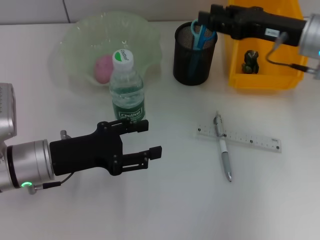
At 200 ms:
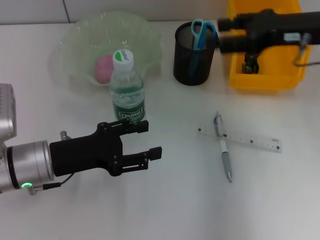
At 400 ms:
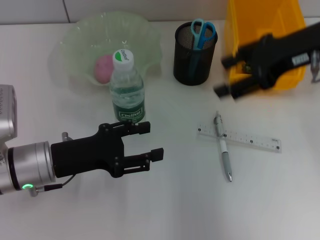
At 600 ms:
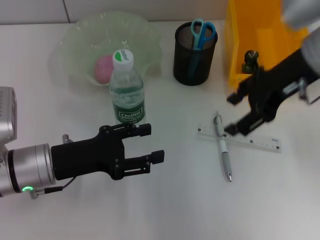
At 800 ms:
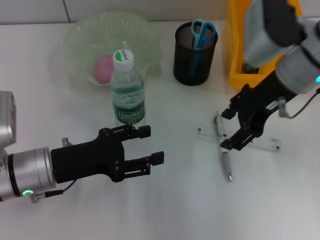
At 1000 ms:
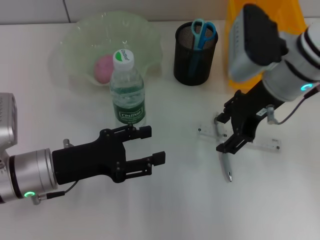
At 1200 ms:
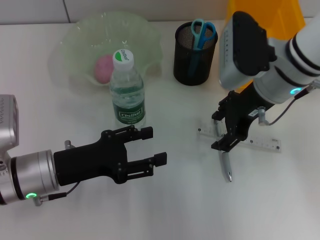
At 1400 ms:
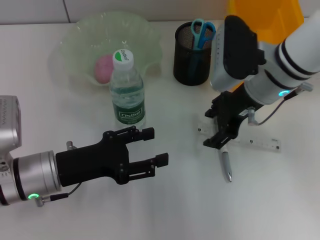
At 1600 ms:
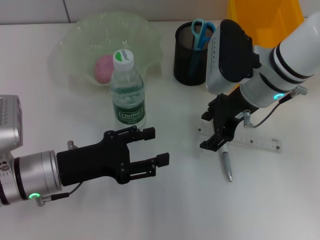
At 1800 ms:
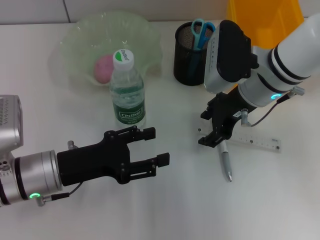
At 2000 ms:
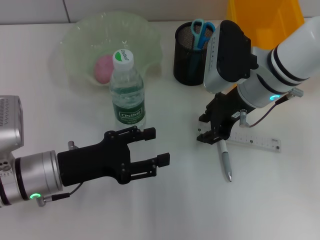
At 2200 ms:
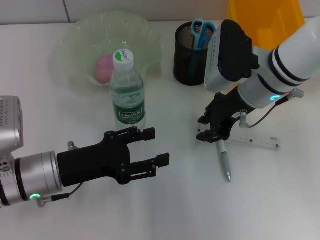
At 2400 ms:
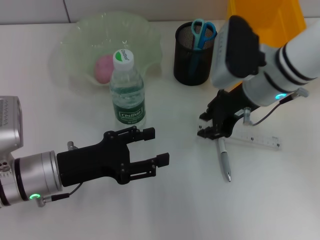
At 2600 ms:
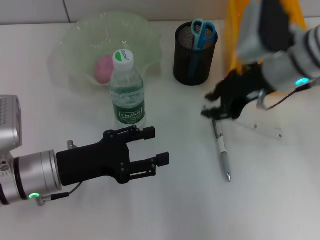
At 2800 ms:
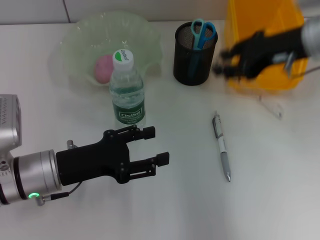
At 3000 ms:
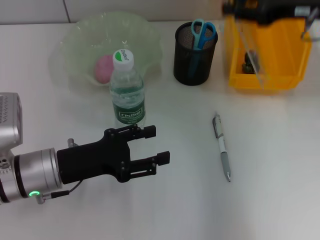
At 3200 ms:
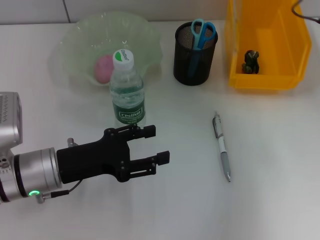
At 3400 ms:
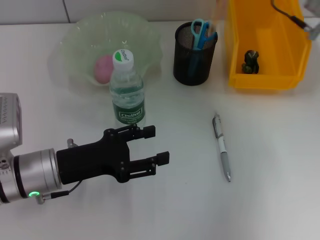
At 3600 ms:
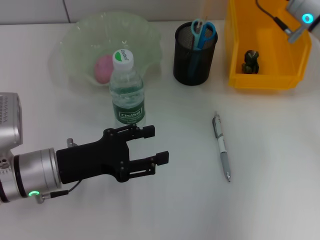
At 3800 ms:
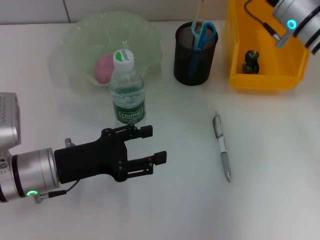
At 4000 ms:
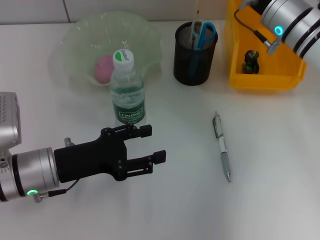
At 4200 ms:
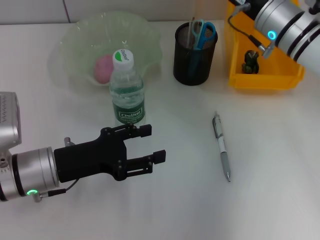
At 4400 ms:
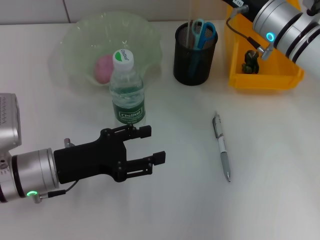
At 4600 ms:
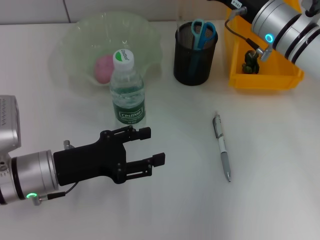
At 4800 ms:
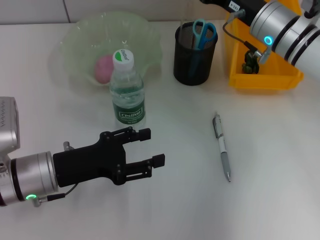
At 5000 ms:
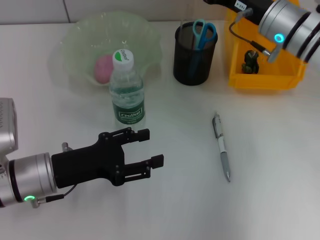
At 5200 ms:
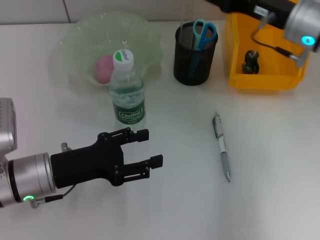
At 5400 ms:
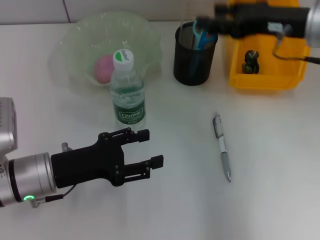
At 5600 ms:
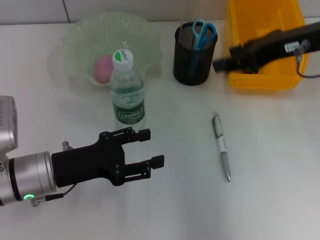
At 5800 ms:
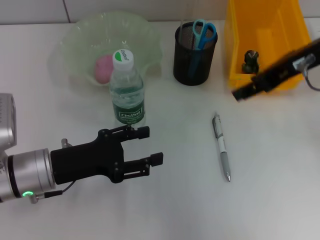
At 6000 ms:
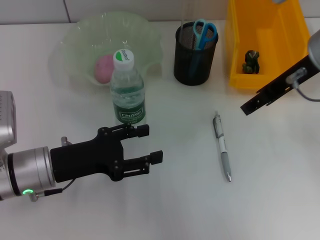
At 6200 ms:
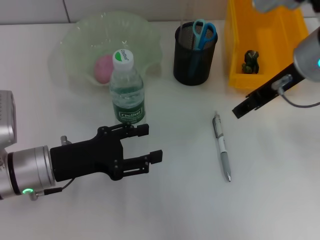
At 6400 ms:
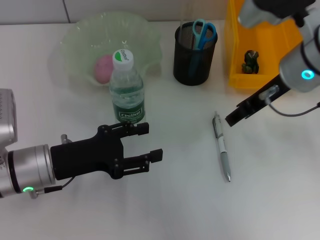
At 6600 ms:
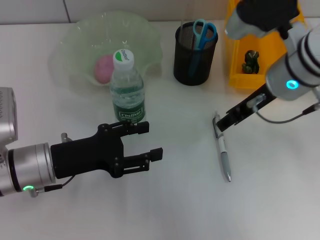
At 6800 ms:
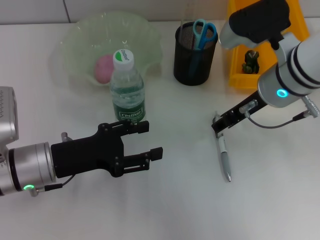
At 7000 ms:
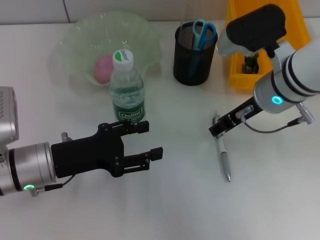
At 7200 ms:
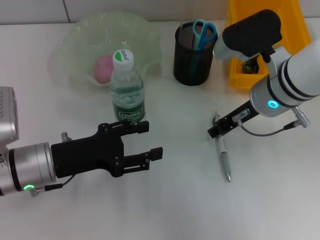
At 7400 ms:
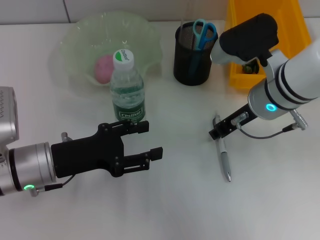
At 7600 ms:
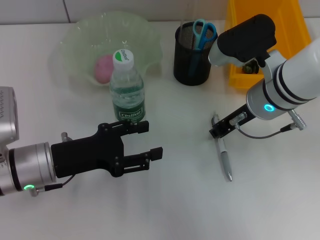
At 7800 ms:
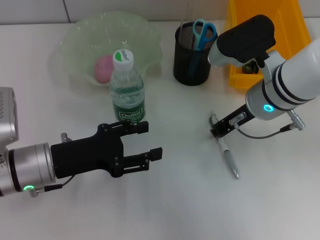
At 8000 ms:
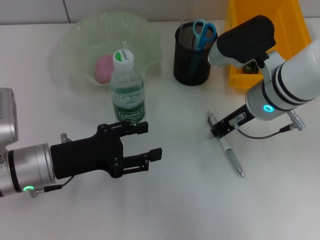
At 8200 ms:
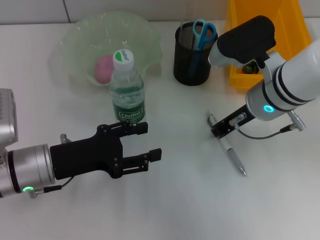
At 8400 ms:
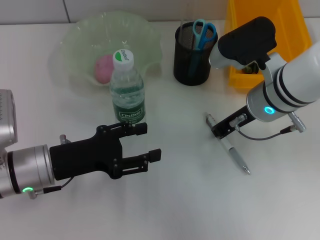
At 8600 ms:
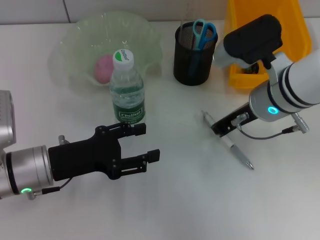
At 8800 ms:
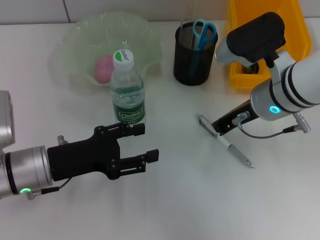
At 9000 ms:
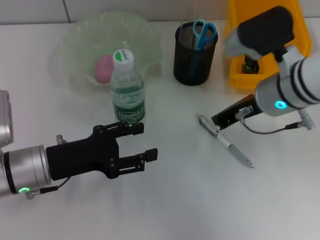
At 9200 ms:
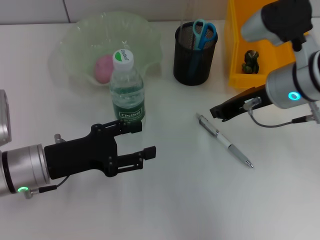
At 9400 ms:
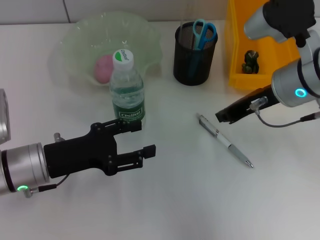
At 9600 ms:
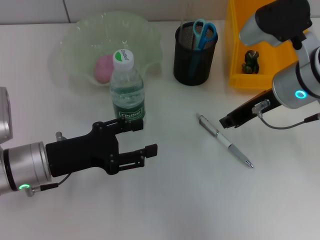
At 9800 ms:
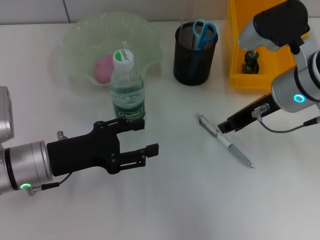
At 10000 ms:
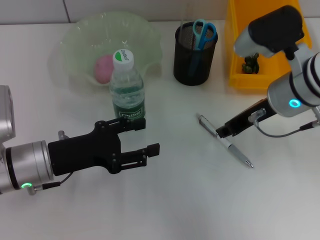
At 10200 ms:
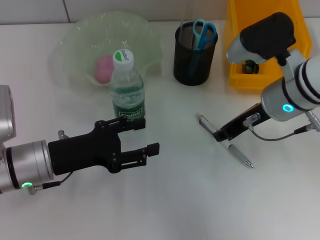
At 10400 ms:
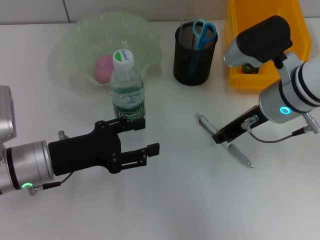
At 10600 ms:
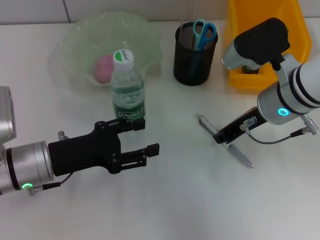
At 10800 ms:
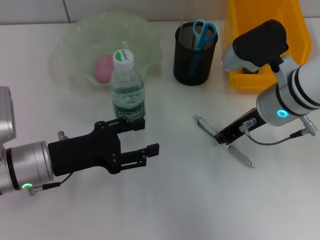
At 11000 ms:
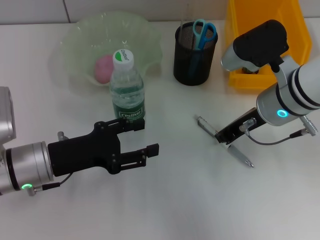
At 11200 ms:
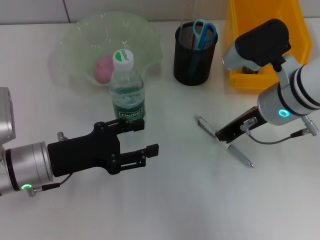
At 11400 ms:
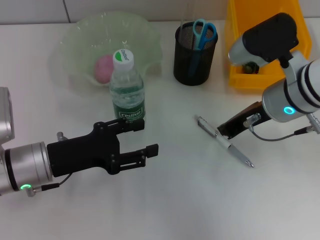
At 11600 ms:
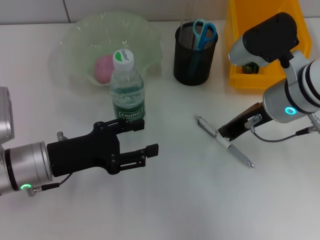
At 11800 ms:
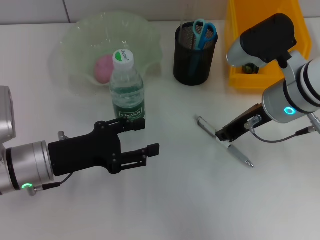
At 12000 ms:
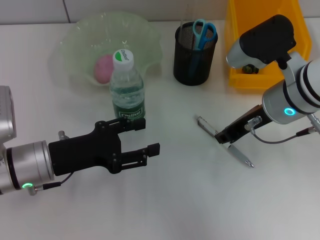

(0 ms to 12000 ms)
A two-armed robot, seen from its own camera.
Step, 0 ms - 2200 ms: Grab the ruler with the right hand.
Step, 2400 ms - 4600 ms: Place the ruler into the pen holder with the right hand.
0 ms - 1600 ms: The right gripper shifts approximately 10 cm to the left.
1600 ms - 3000 ms: The right gripper goes approximately 15 cm to the right and upward, and closes.
3000 ms - 4400 ms: The right gripper goes some 10 cm downward and to the left.
4400 ms - 6000 ms: The right gripper is displaced upward and backward by approximately 10 cm.
6000 ms - 7600 ms: The right gripper heads downward, covering about 10 cm.
7600 ms - 9000 ms: The right gripper closes.
9000 ms - 10400 ms: The right gripper opens.
10400 ms - 12000 ms: The two grippers keep their place.

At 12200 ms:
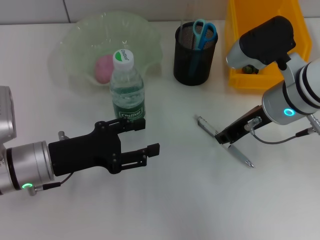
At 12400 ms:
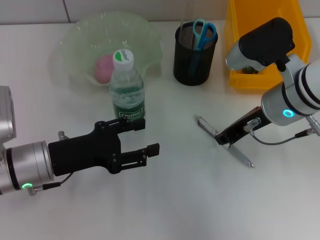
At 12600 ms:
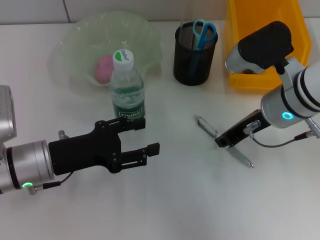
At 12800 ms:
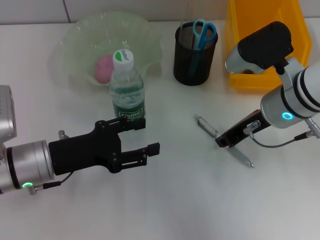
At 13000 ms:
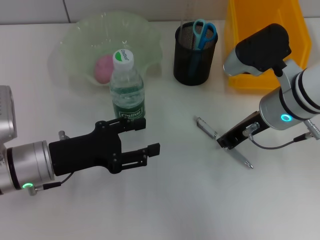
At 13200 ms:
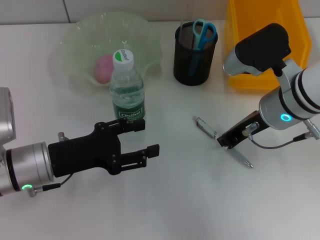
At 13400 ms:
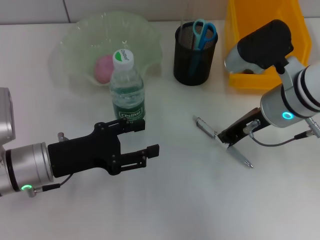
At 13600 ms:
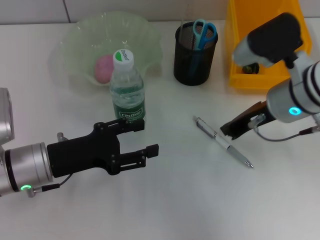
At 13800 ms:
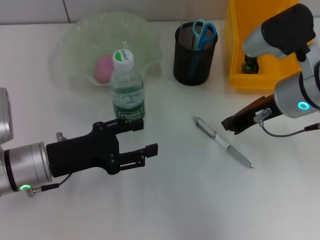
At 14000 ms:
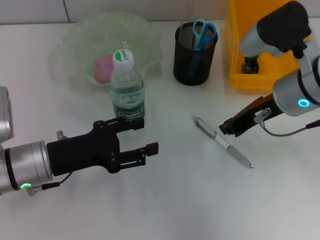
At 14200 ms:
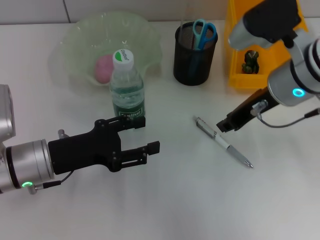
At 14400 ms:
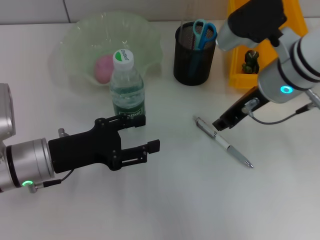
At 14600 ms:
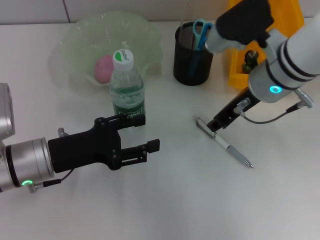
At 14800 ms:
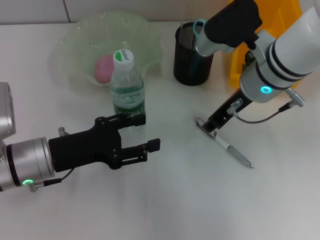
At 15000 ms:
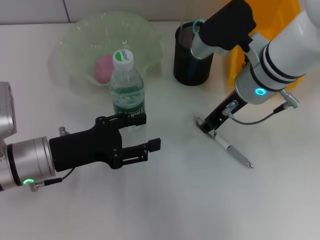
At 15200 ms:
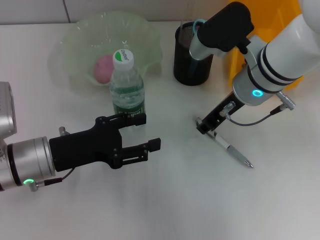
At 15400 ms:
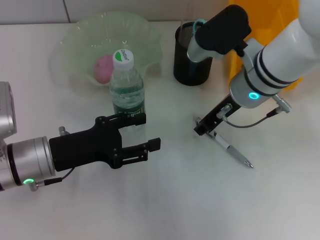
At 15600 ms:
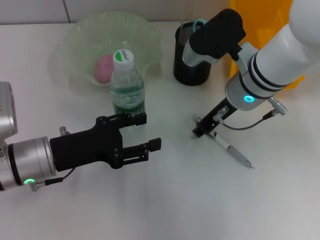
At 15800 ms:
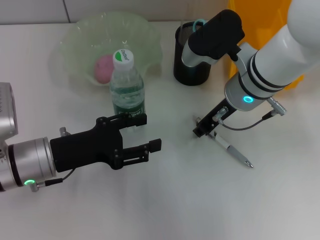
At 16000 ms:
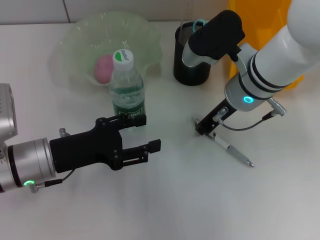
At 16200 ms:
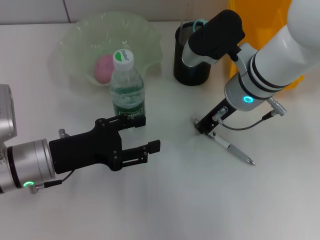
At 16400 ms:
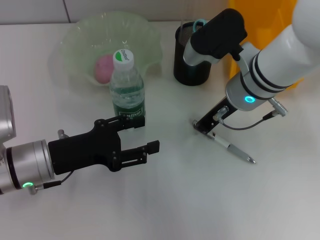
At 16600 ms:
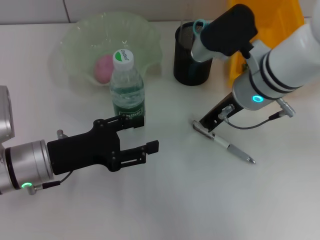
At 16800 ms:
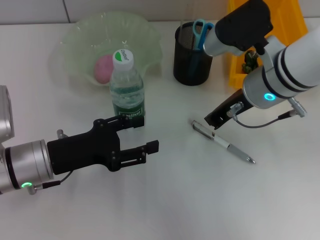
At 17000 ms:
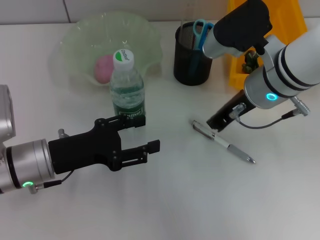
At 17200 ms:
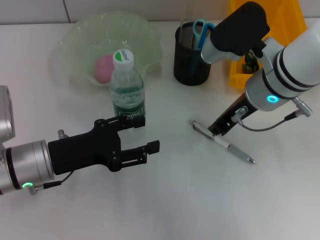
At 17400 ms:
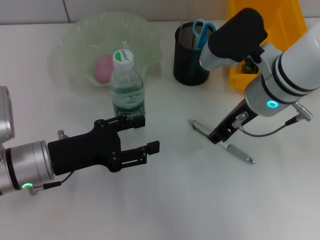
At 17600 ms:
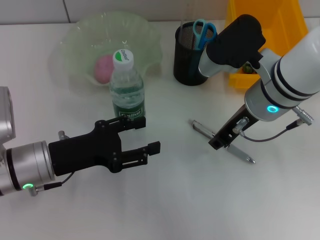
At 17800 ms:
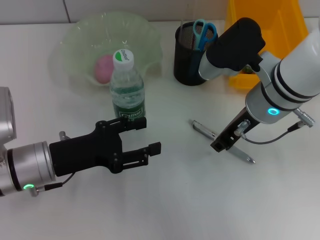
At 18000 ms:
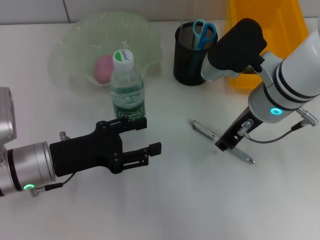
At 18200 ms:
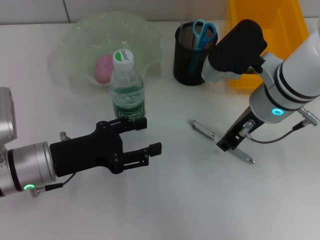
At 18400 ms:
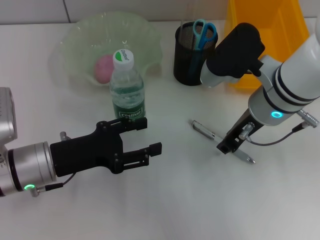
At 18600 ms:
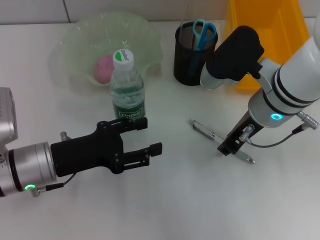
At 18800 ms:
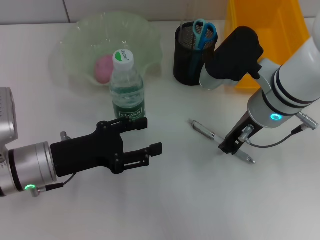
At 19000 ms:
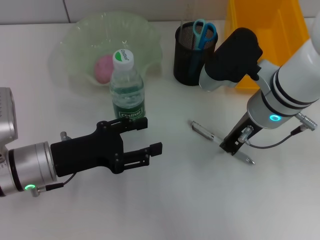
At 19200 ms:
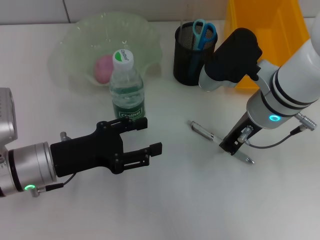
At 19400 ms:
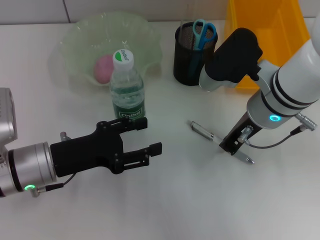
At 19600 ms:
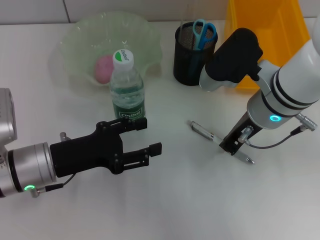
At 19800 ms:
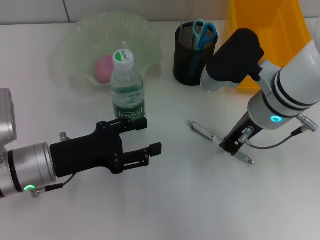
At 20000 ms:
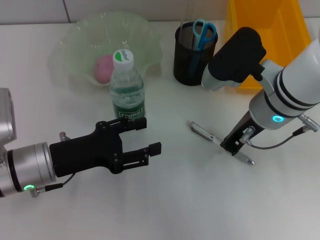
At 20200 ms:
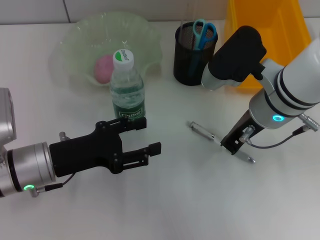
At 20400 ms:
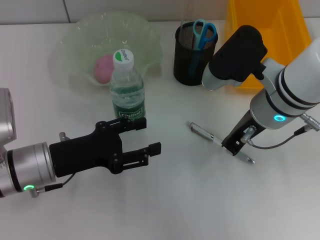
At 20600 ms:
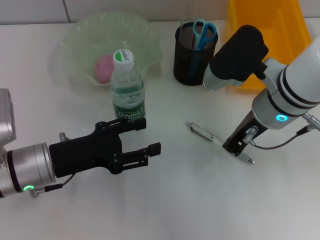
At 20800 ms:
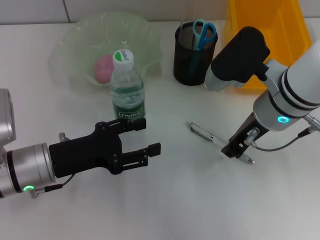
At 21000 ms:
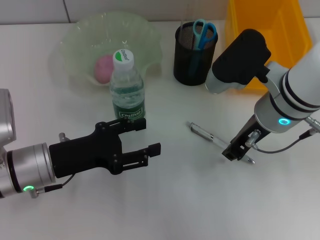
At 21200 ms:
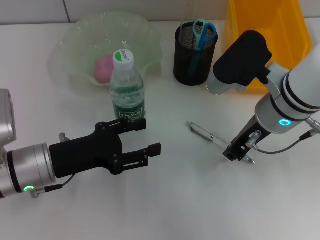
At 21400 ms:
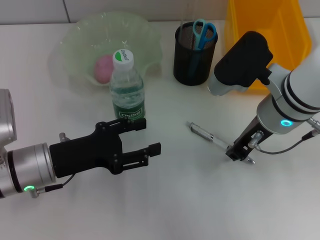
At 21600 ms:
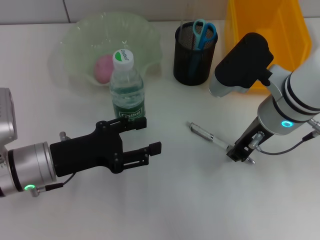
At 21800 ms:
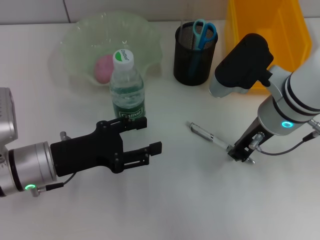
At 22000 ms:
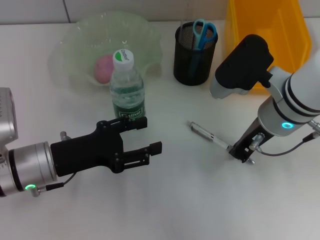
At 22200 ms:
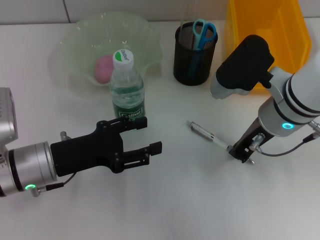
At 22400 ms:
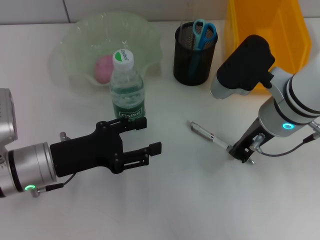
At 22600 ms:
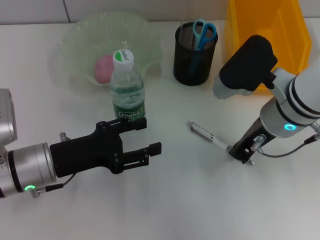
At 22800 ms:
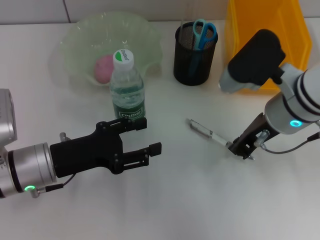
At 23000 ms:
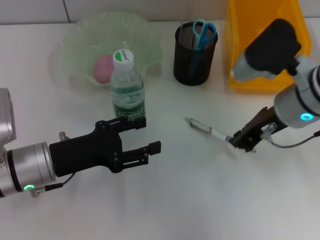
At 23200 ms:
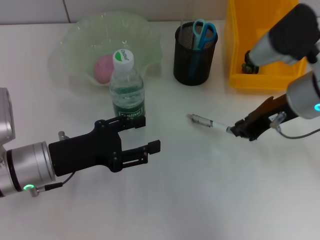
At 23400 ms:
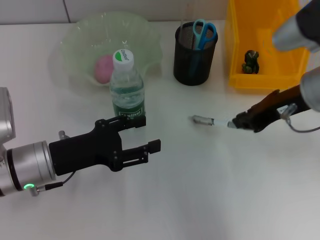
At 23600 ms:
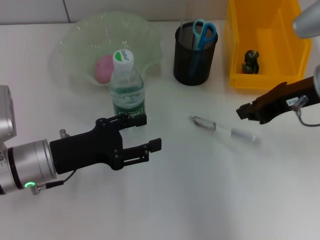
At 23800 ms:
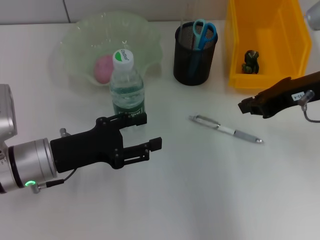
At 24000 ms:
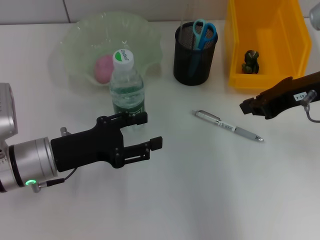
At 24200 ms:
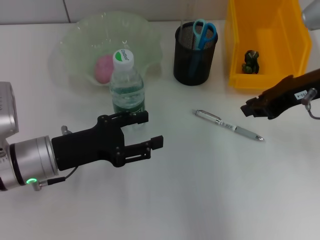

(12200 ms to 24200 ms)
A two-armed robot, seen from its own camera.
12200 ms - 13800 ms: There are only small adjustments of the grippers.
13800 ms - 15200 ms: The right gripper moves to the left, approximately 5 cm, and opens.
15200 ms - 16600 ms: The right gripper closes its fingers.
16600 ms - 18200 ms: The right gripper opens its fingers.
18200 ms - 19800 ms: The right gripper closes up.
19800 ms - 21200 ms: The two grippers keep their place.
21200 ms - 22600 ms: Neither gripper changes place.
22600 ms - 24200 ms: The right gripper goes about 10 cm to the right and upward.
